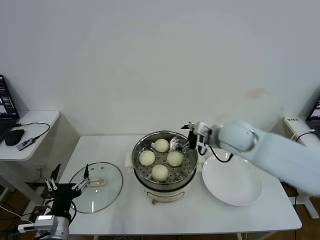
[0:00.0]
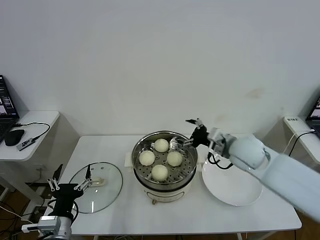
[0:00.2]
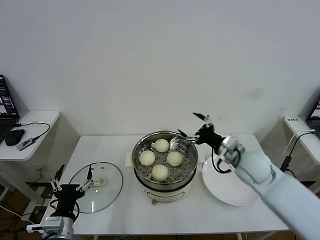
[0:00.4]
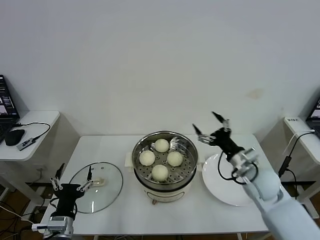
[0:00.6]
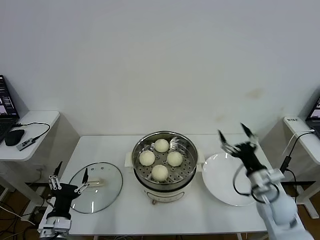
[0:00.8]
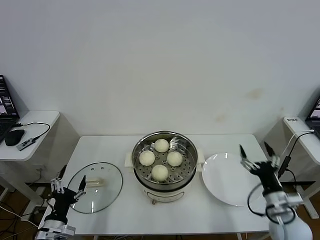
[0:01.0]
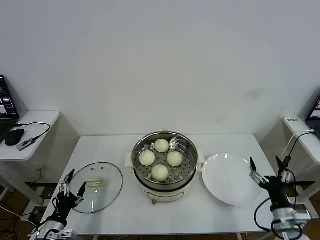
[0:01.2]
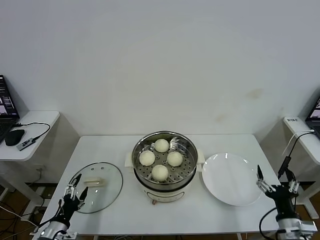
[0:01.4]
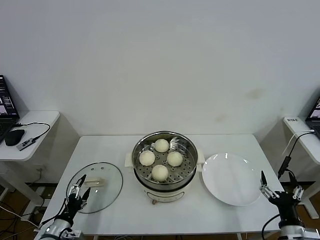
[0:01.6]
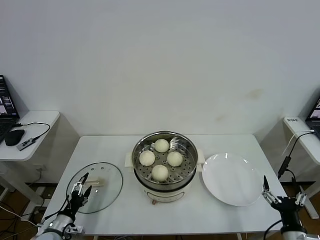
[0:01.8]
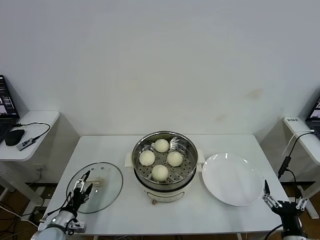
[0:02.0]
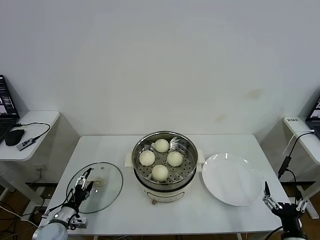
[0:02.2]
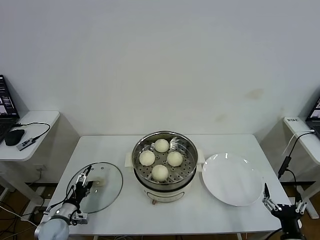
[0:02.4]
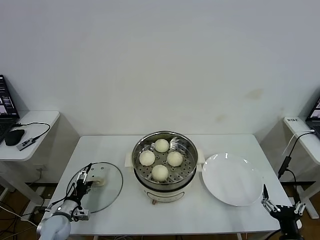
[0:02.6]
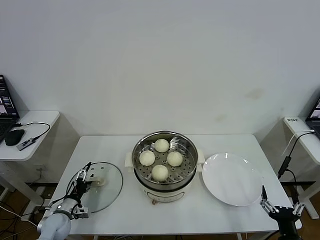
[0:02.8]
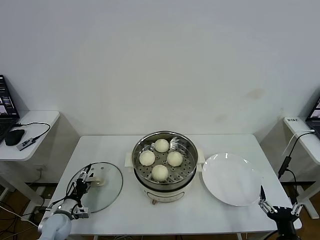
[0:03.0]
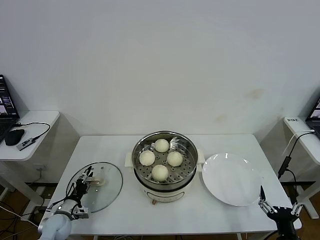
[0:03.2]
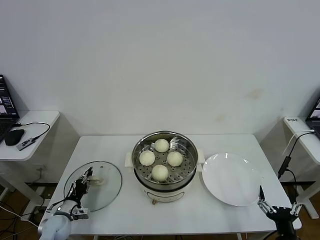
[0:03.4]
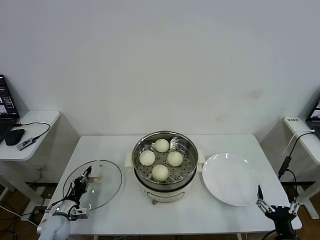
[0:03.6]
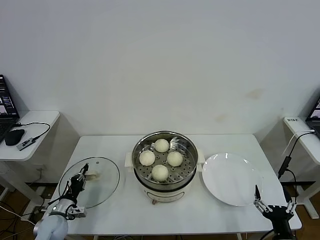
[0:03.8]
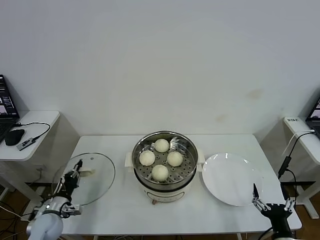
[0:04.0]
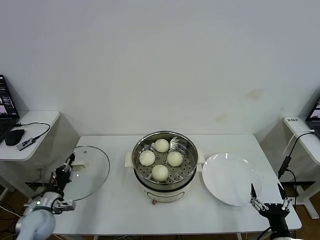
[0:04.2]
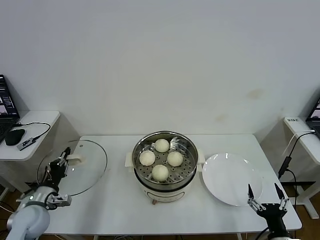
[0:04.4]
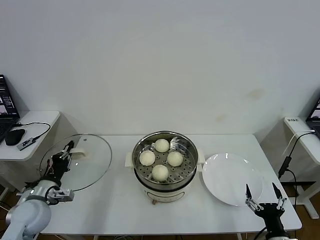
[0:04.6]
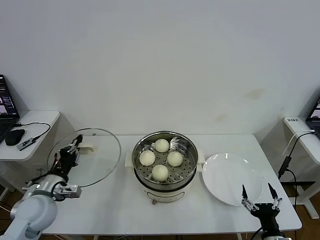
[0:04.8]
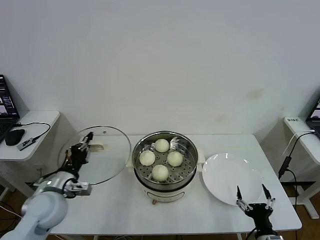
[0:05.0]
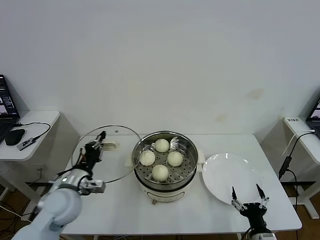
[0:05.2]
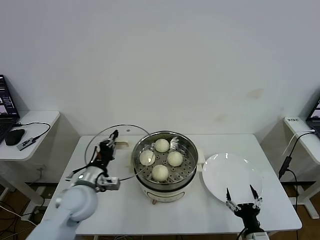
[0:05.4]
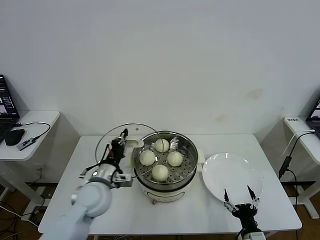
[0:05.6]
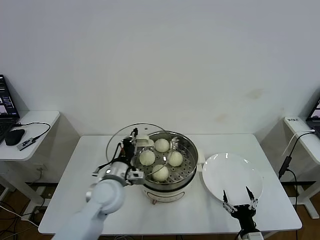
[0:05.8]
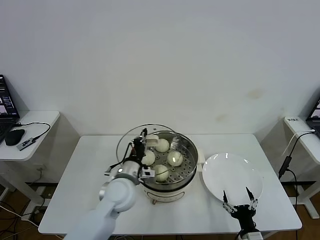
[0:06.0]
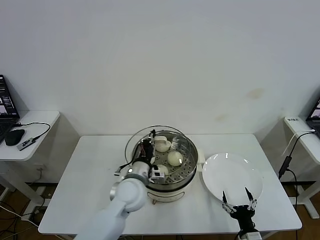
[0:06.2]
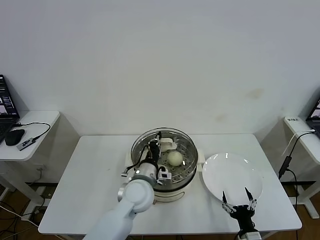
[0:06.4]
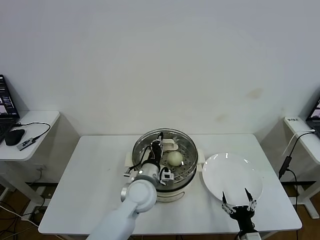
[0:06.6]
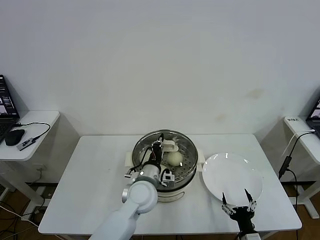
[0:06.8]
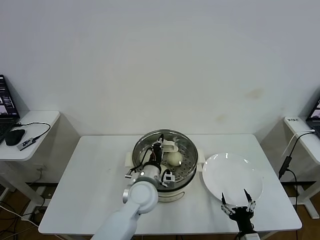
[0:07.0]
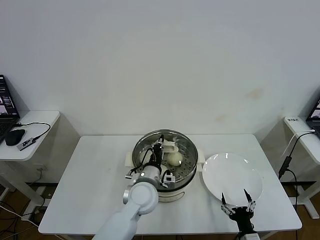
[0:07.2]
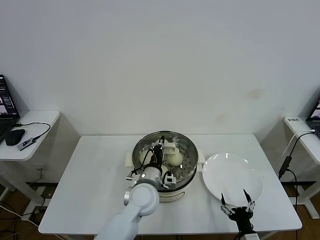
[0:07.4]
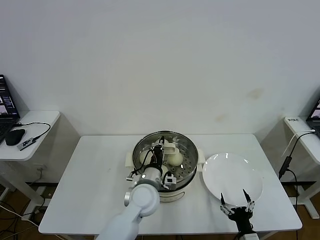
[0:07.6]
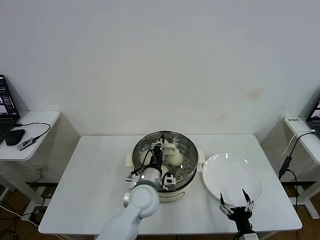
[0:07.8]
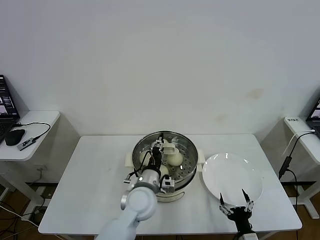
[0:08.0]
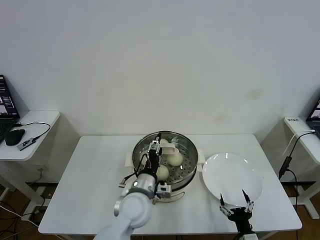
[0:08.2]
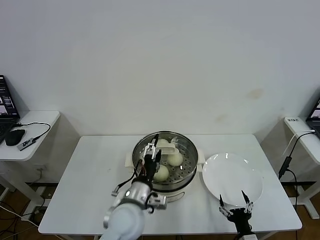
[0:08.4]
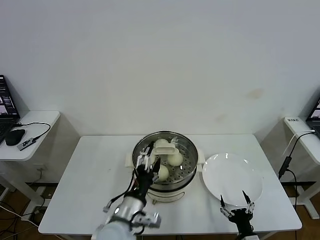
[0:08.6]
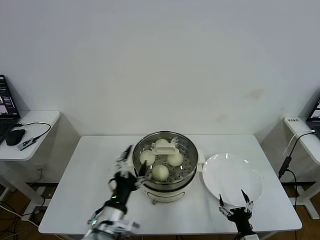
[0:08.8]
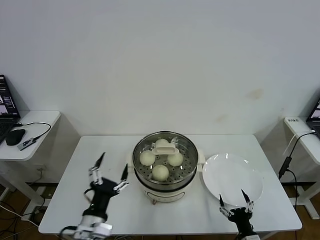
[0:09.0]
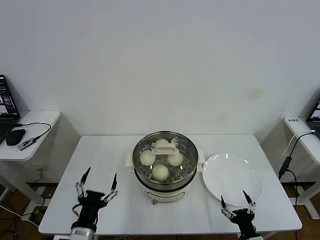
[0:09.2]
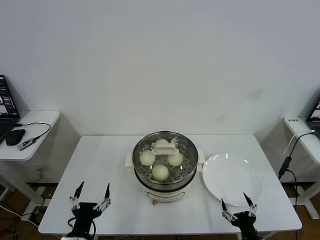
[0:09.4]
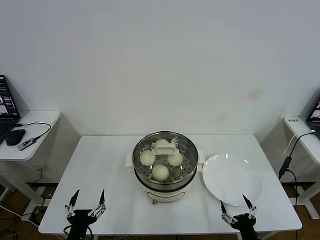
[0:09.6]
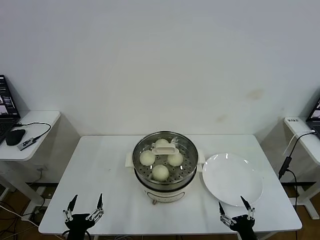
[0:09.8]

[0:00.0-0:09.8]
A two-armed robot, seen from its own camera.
Task of the whole recording: take steamed baozi put them in steamer then cover it.
Step, 0:00.0 to 0:03.6: Grasp the pot lid with left gripper.
Step, 0:03.8 to 0:07.8: Place the pot lid on the steamer with left gripper.
0:00.0 to 0:01.4: The right gripper moves backward, downward and to the right, roughly 40 cm; the left gripper shifts approximately 15 cm downward and to the left.
0:01.4 to 0:02.8: The right gripper moves backward, roughly 5 cm; the left gripper travels forward by about 10 cm.
0:02.8 to 0:04.2: The left gripper is displaced upward by roughly 5 cm, and closes up.
0:04.2 to 0:05.6: The right gripper heads downward and to the left, covering roughly 5 cm; the left gripper heads to the right and upward, covering roughly 25 cm.
0:05.6 to 0:07.0: The left gripper shifts about 15 cm to the right.
0:07.0 to 0:08.4: The left gripper shifts about 5 cm backward, and opens.
0:08.4 to 0:09.8: The left gripper is displaced to the left, backward and downward by some 25 cm.
